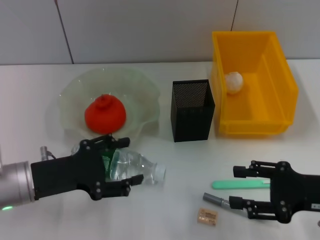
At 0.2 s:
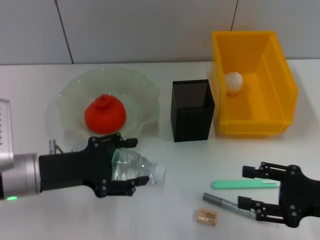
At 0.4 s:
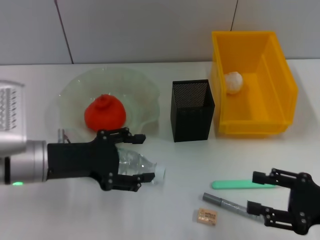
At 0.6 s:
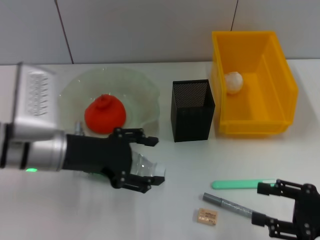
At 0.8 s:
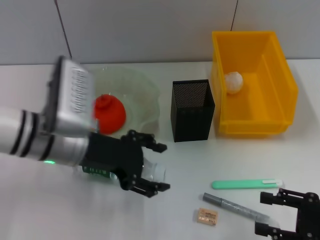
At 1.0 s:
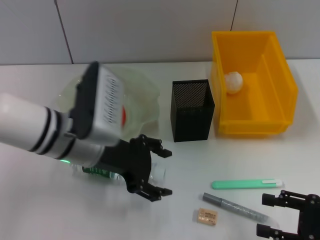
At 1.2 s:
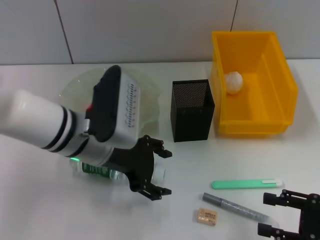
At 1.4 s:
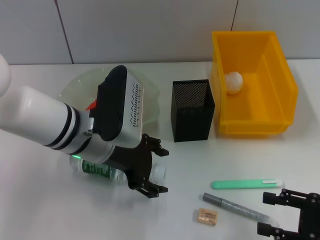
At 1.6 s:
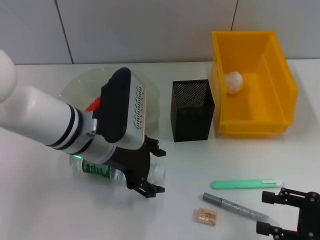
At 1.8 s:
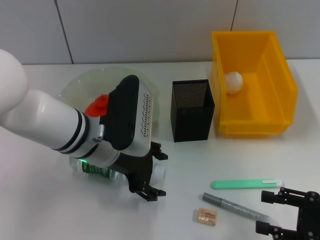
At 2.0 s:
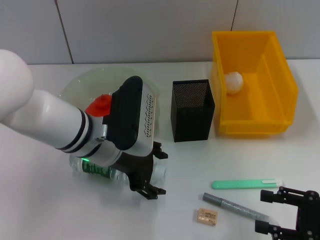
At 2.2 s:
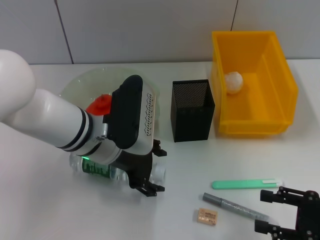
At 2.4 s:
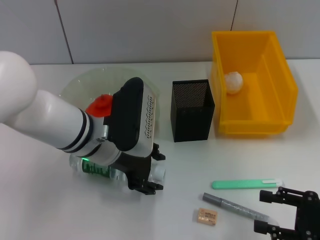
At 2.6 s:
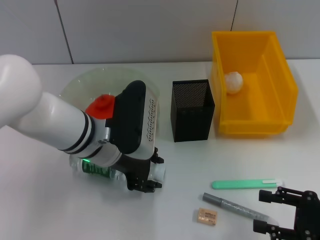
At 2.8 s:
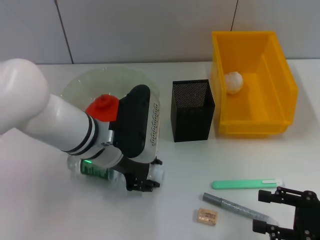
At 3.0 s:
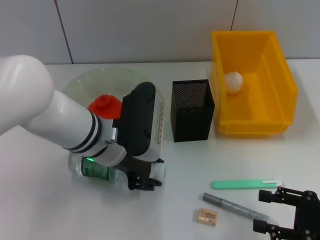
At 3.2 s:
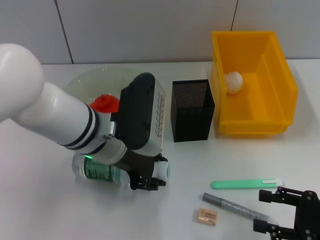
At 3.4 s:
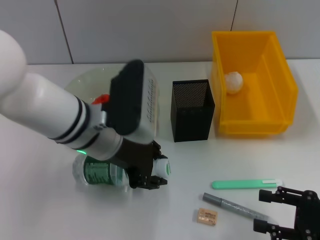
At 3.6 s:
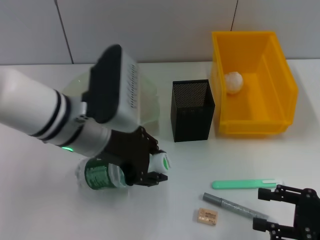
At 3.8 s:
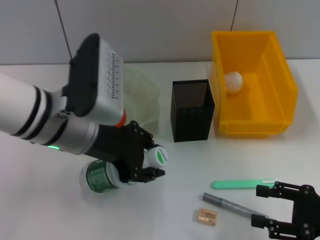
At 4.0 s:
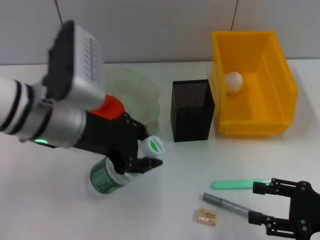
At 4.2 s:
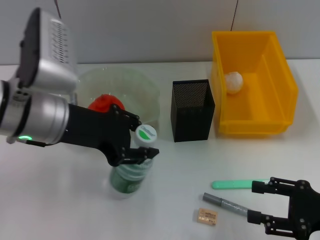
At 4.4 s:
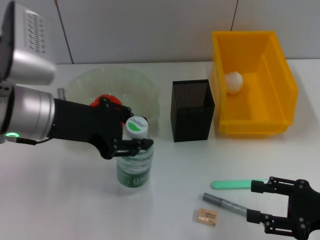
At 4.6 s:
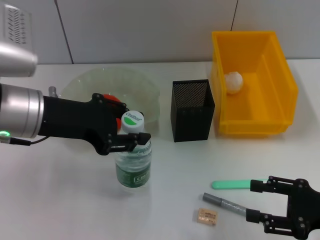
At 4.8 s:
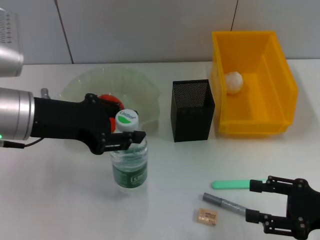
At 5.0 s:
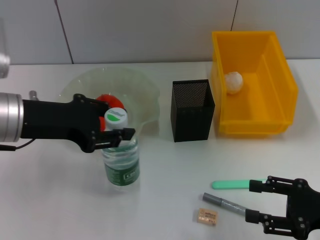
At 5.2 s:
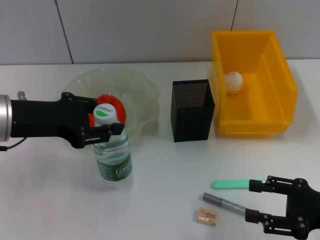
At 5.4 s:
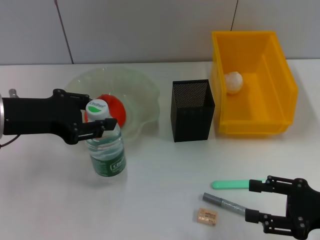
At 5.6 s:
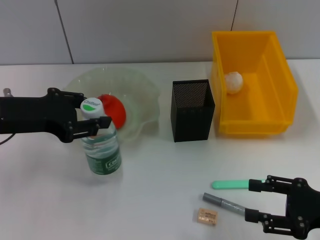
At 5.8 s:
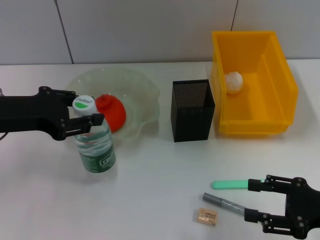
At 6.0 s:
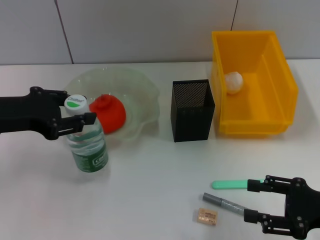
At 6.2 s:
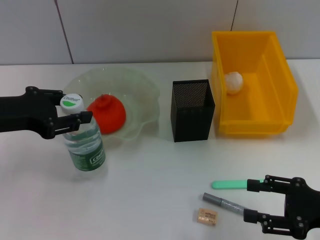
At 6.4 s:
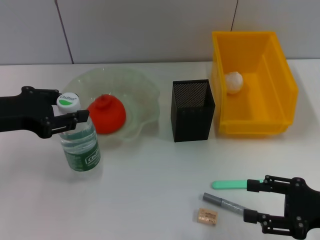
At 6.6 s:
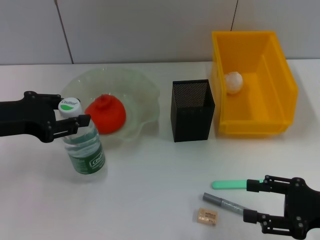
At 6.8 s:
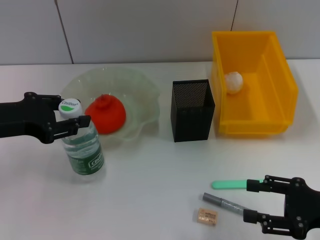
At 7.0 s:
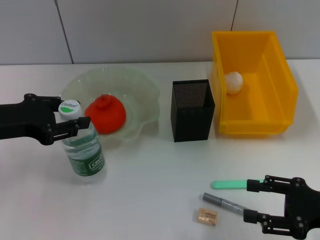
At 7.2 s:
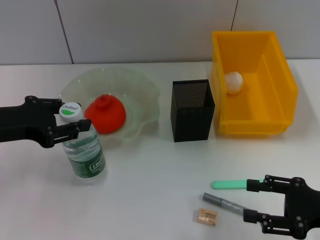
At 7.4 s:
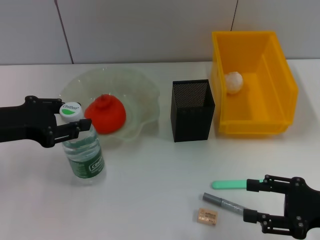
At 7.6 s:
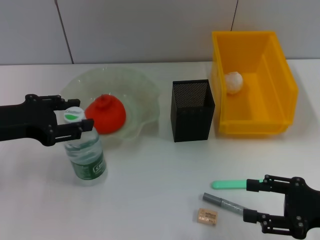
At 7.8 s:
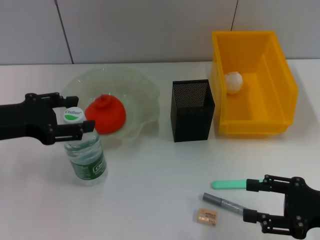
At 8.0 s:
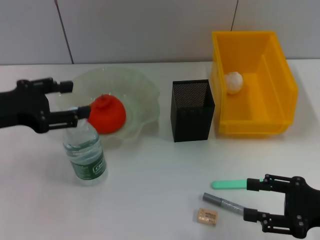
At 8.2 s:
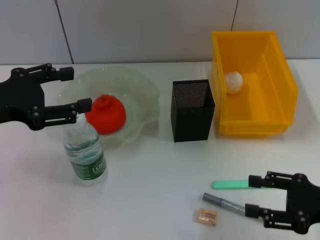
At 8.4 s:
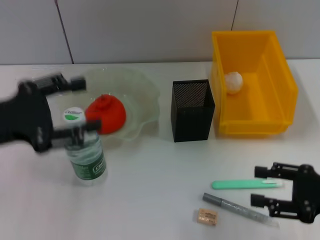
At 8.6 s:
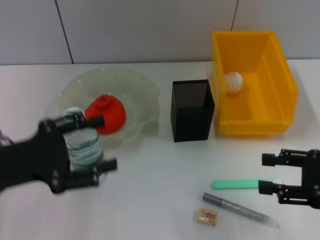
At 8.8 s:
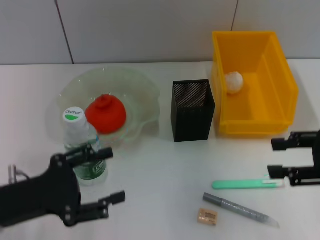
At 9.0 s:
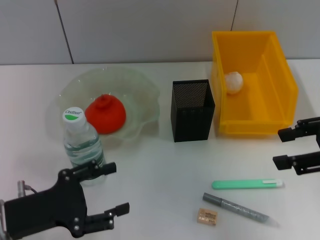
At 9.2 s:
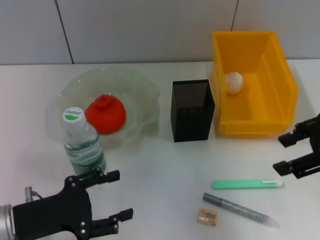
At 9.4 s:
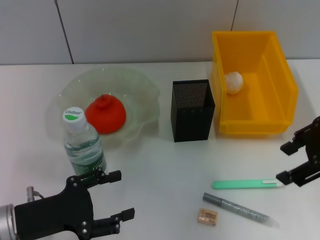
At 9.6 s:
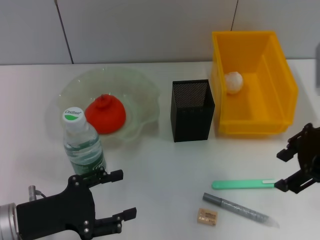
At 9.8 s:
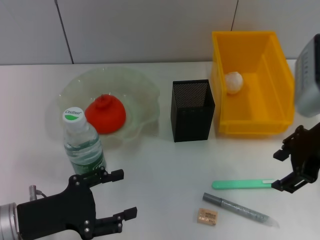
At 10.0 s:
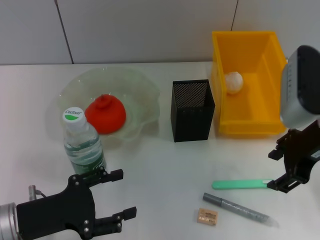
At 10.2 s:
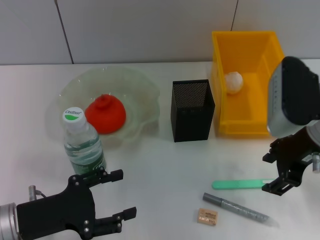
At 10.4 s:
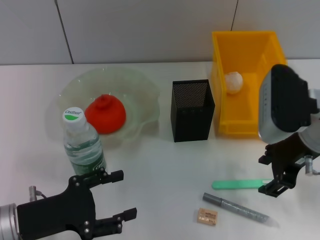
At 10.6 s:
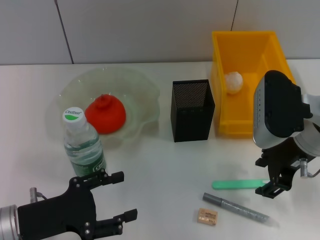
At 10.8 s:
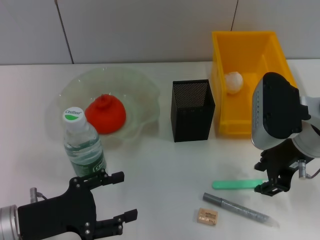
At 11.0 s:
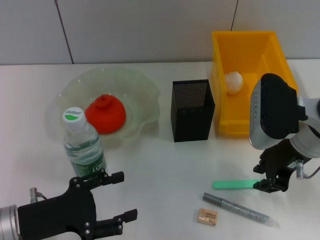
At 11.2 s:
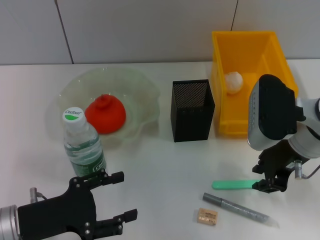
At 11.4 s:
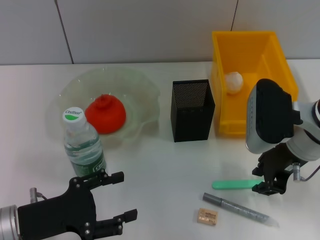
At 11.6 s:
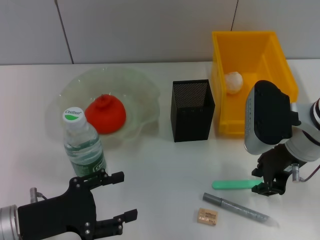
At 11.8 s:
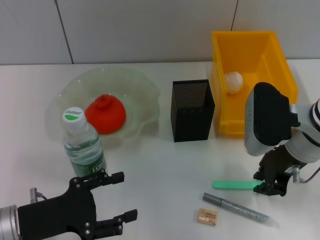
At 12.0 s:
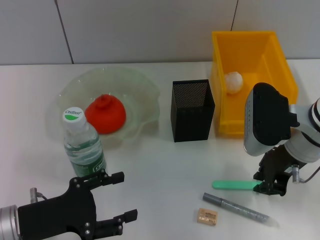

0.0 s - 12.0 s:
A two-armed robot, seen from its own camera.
Step, 0.0 s - 2.6 s: Grab the water bottle with the left hand.
Step, 3.0 s - 7.4 s: Place the water bottle on the table with the left hand.
0.0 s - 1.6 s: The right gripper ends up about 5 cm from where it was, while the left gripper travels to the right, forward and upward by approximately 15 cm.
1.6 s - 3.0 s: The left gripper closes its fingers.
3.0 s - 4.4 s: The left gripper is displaced upward and to the left by some 10 cm.
4.4 s - 6.0 s: The left gripper shifts approximately 10 cm to the left.
6.0 s - 7.6 s: The grippers move only a little.
7.6 s - 9.0 s: The left gripper shifts some 15 cm downward and backward, and opens its fingers. The right gripper heads upward, covering roughly 15 cm.
9.0 s - 10.4 s: The right gripper goes roughly 15 cm to the left, downward and forward.
10.4 s - 12.0 s: The right gripper closes.

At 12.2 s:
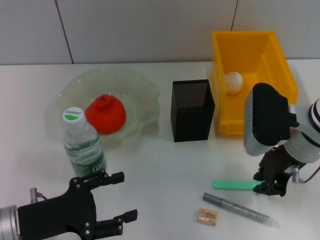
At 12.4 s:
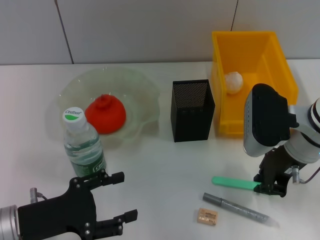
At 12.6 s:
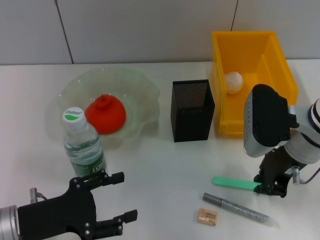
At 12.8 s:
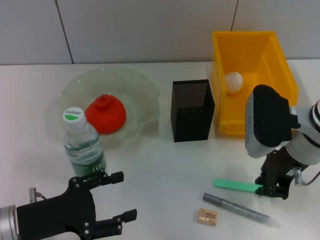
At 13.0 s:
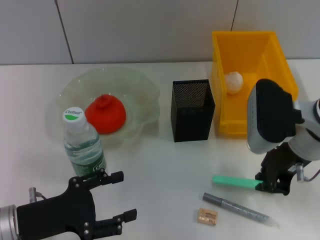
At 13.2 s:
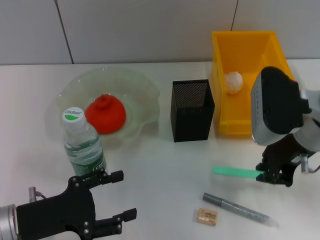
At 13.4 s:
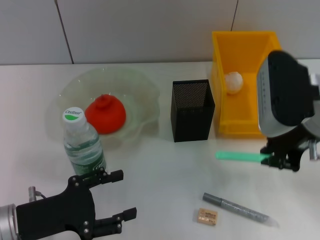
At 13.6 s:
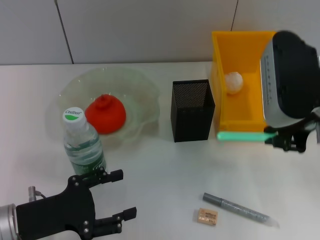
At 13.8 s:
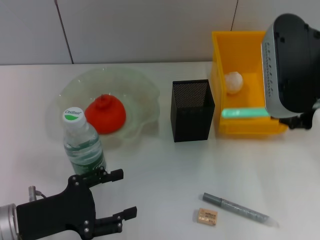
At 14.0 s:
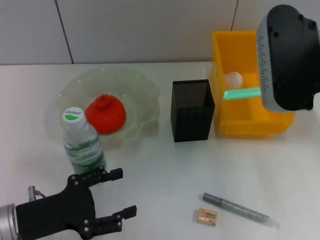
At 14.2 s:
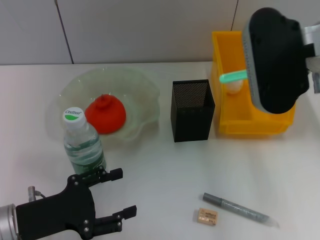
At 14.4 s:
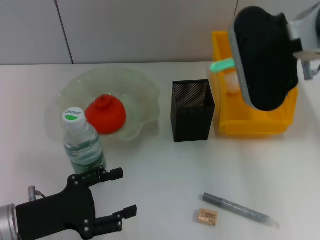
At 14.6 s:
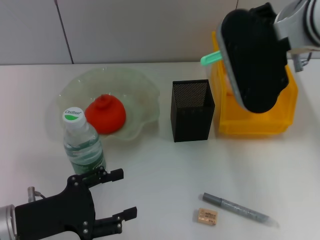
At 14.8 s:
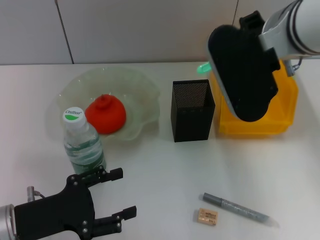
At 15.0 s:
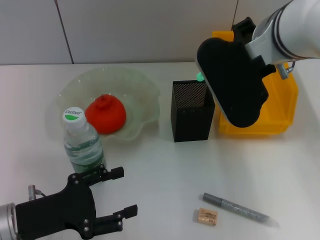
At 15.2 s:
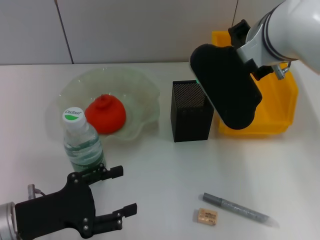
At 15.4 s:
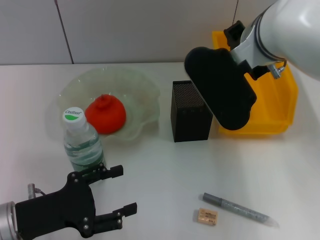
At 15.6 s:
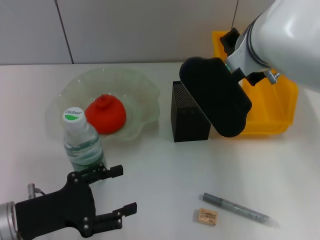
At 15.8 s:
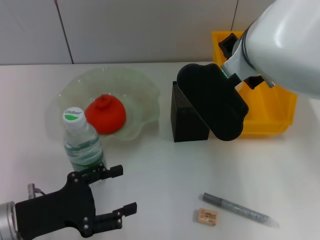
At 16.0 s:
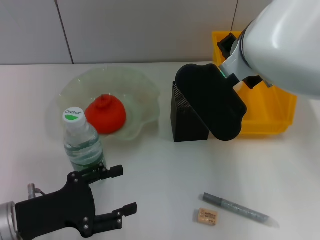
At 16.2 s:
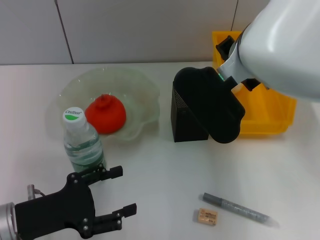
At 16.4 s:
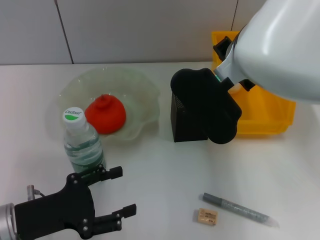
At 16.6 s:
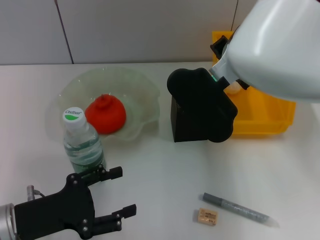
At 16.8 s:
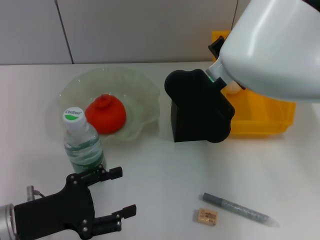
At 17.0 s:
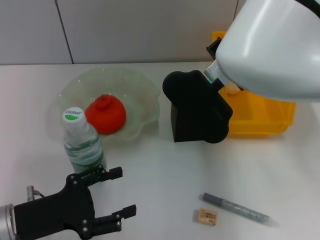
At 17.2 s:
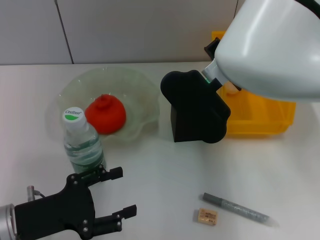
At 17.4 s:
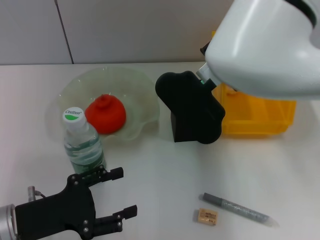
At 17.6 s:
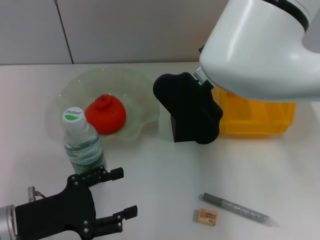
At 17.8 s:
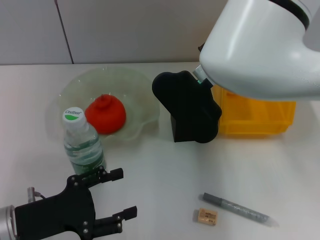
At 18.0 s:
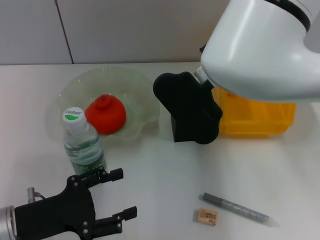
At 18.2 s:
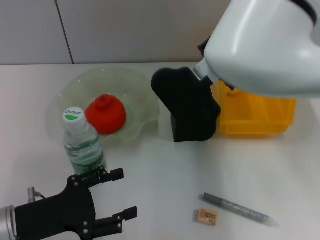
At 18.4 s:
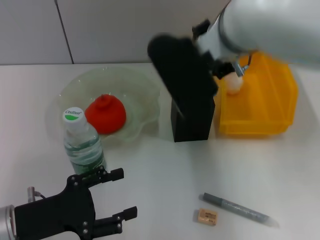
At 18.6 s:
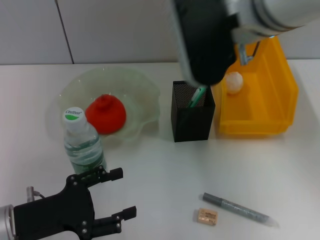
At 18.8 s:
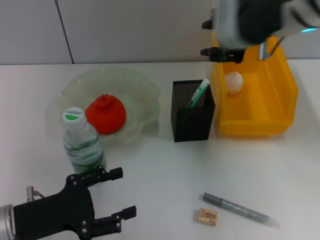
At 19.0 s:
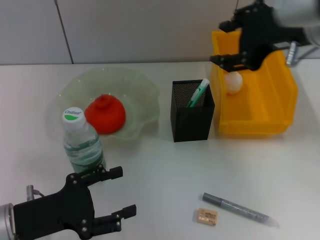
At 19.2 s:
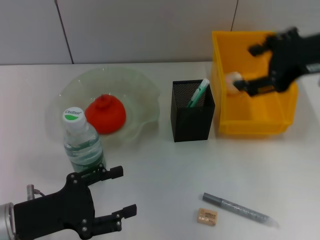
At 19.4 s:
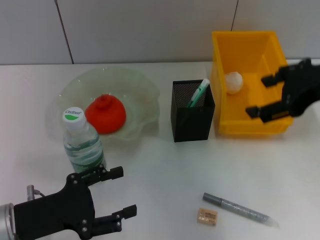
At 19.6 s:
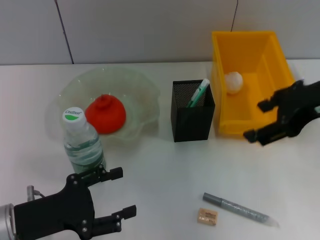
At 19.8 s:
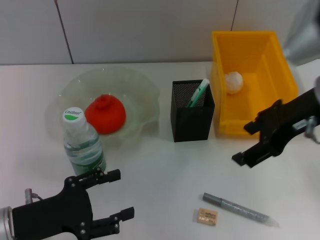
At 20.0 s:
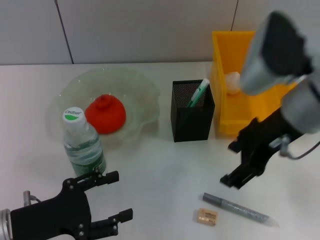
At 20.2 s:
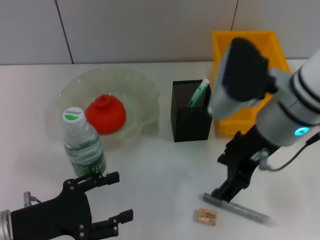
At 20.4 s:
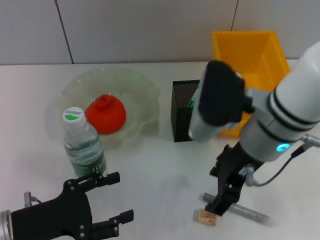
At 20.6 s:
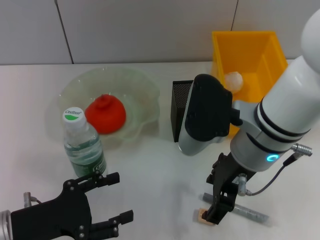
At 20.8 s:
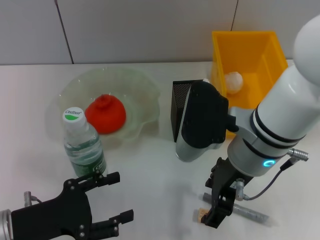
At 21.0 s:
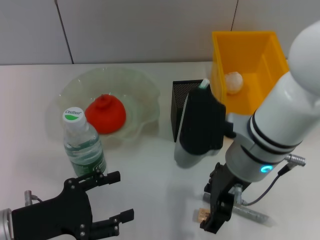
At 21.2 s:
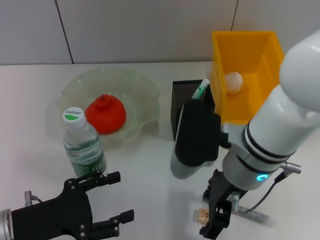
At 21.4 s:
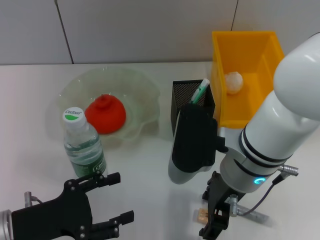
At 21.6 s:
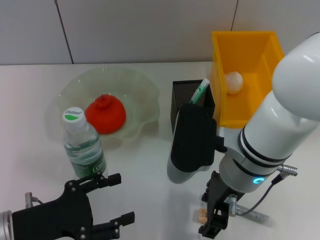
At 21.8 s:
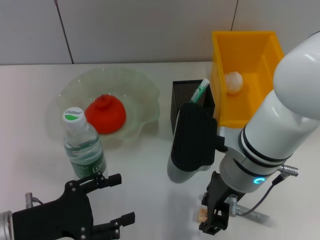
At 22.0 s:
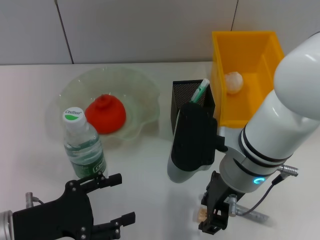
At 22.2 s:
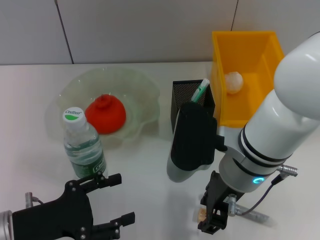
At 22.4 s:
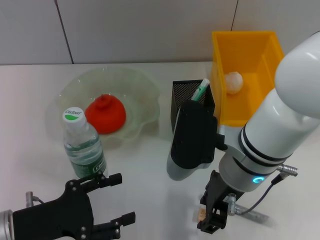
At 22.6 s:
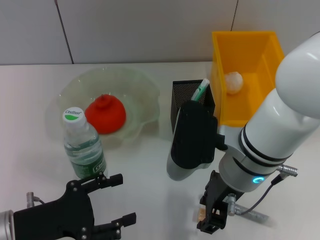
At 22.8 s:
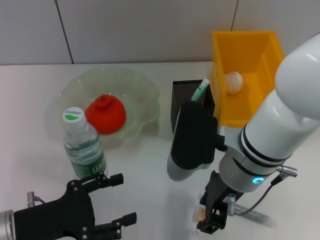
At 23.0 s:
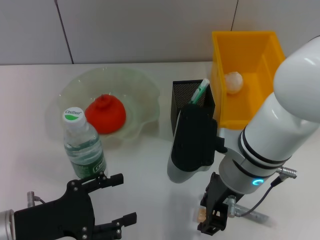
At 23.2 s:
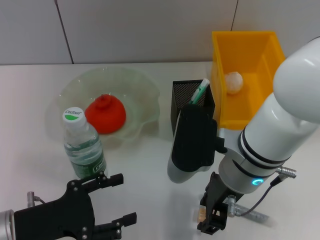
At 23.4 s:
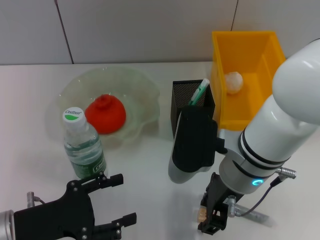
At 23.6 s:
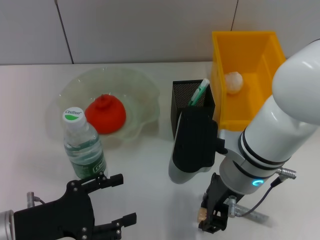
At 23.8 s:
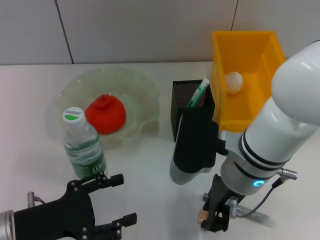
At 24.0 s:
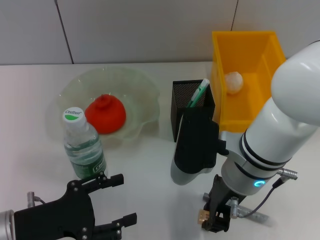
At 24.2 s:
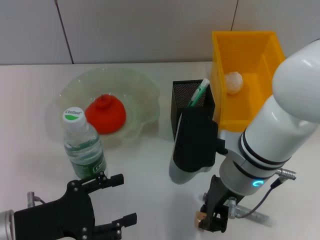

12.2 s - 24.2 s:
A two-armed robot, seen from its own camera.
Step, 12.8 s - 18.2 s: Place the blue utility knife into the pen holder with the right hand.
12.2 s - 13.8 s: The right gripper shifts some 10 cm upward.
13.8 s - 15.2 s: The right gripper heads to the left, covering approximately 10 cm.
15.2 s - 18.2 s: The grippers stay close to where they were, moving slightly.
18.2 s - 19.8 s: The right gripper shifts some 15 cm to the right, and opens up.
19.8 s - 21.2 s: The right gripper is displaced to the left and downward by approximately 15 cm.
21.2 s - 22.6 s: The right gripper closes up.
22.6 s - 24.2 s: There are only small adjustments of the grippers.
